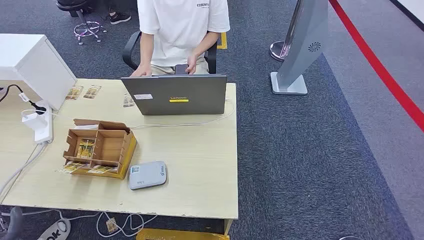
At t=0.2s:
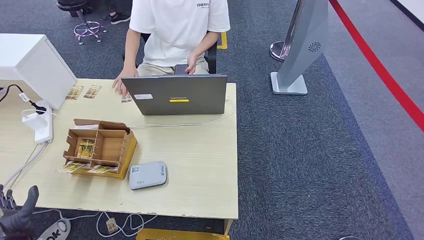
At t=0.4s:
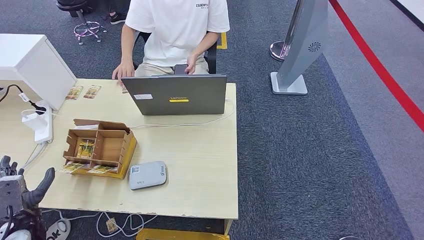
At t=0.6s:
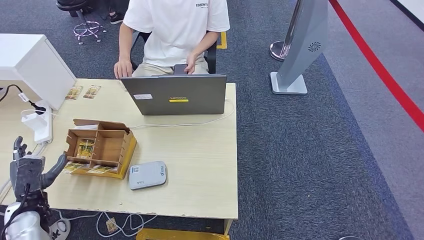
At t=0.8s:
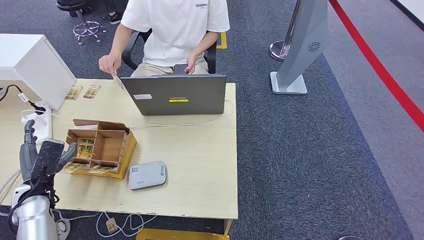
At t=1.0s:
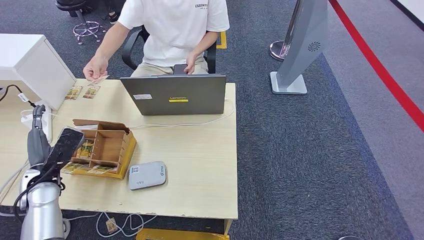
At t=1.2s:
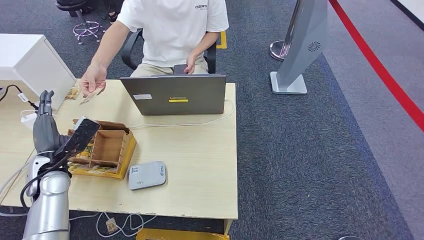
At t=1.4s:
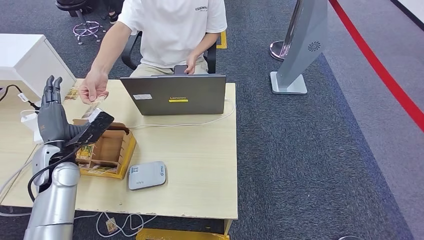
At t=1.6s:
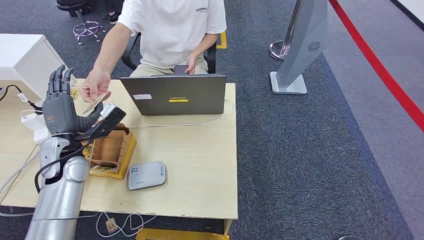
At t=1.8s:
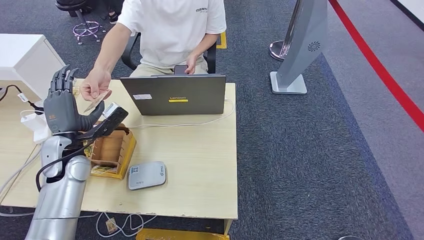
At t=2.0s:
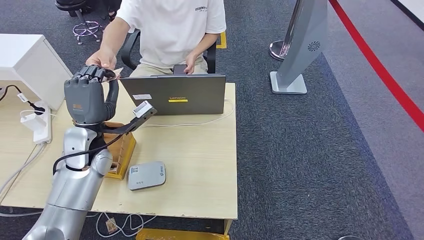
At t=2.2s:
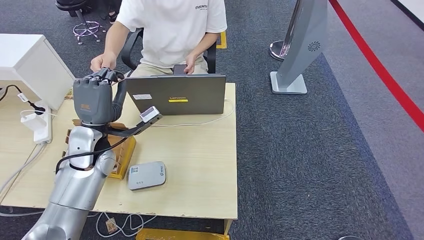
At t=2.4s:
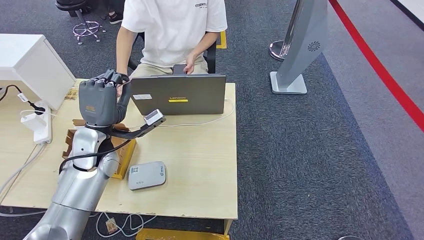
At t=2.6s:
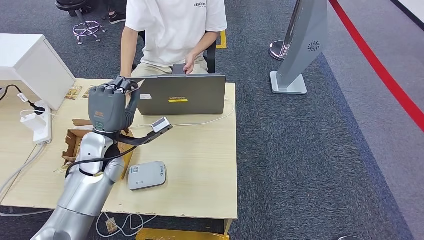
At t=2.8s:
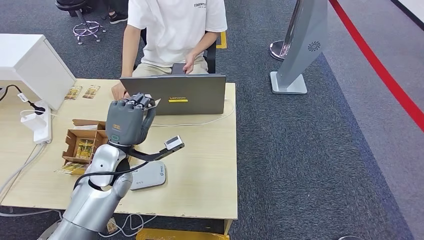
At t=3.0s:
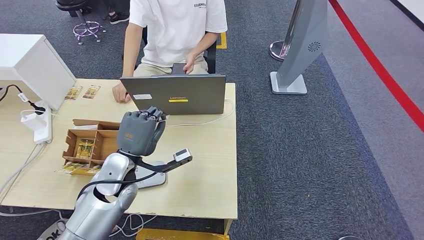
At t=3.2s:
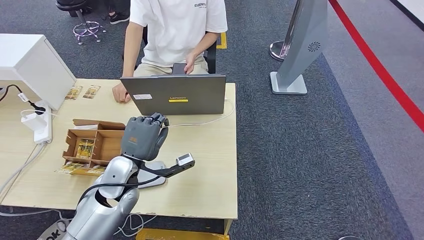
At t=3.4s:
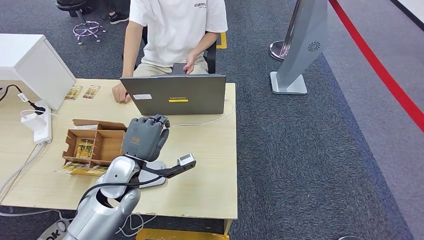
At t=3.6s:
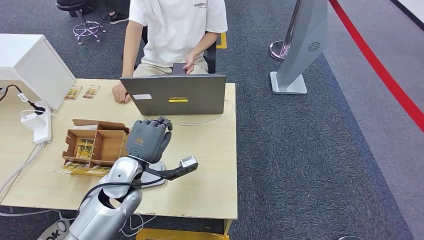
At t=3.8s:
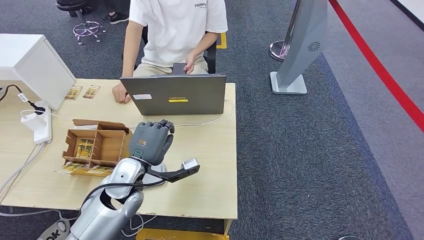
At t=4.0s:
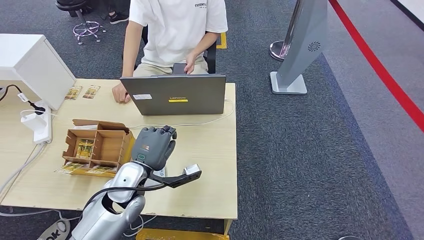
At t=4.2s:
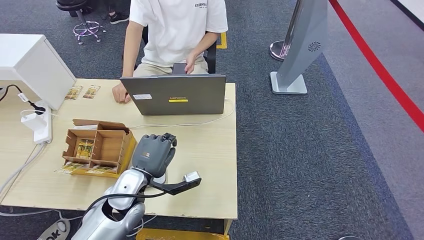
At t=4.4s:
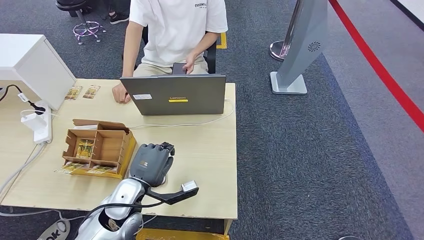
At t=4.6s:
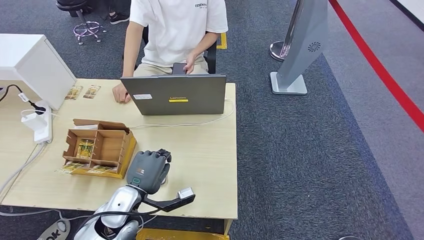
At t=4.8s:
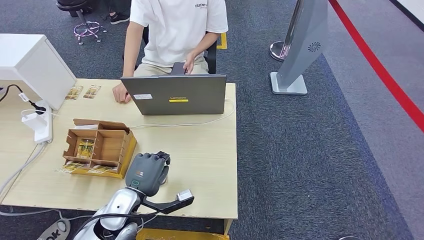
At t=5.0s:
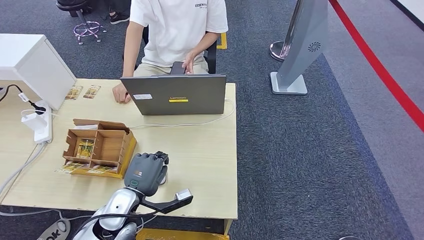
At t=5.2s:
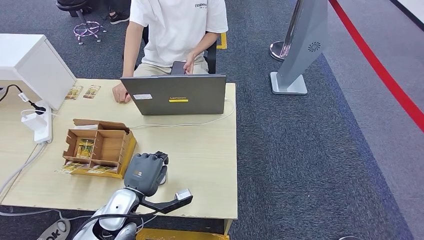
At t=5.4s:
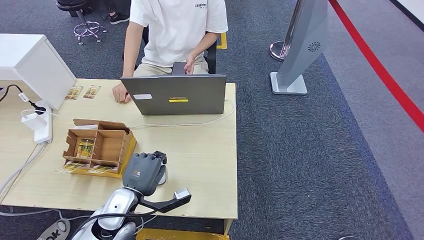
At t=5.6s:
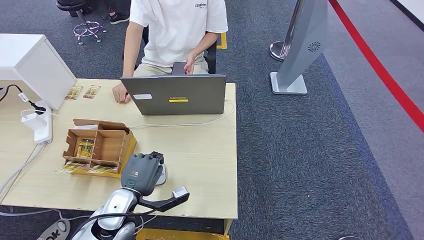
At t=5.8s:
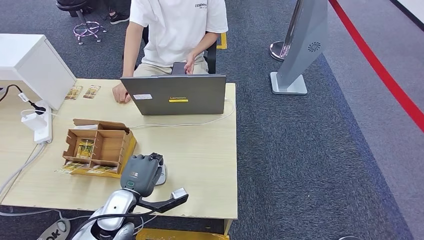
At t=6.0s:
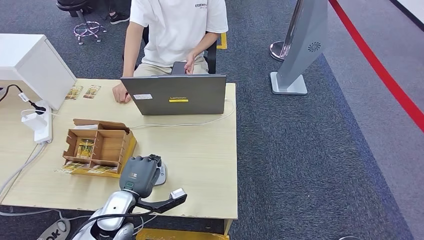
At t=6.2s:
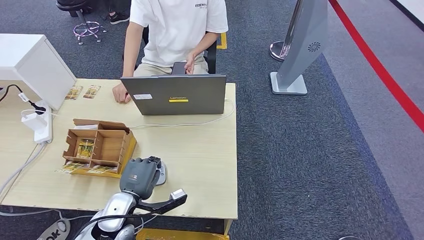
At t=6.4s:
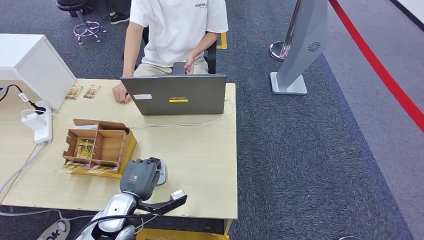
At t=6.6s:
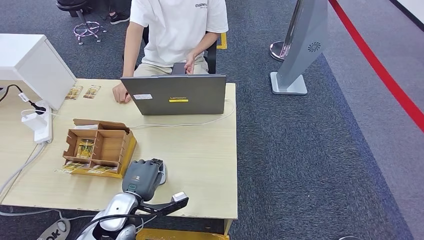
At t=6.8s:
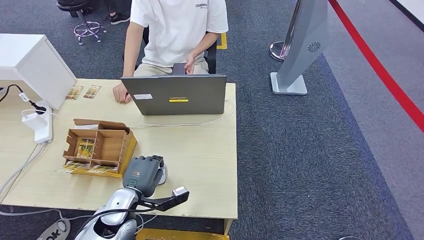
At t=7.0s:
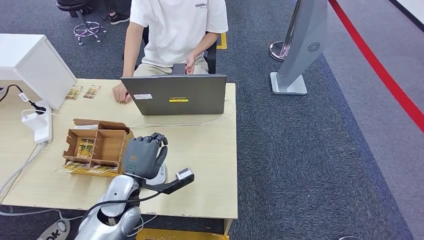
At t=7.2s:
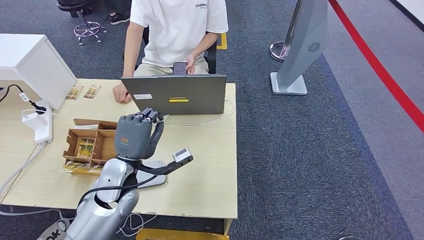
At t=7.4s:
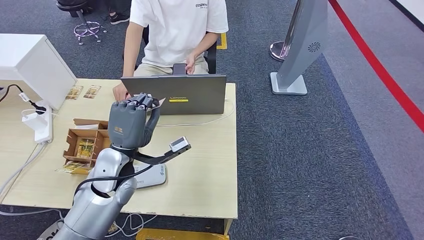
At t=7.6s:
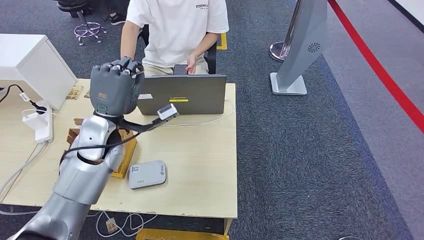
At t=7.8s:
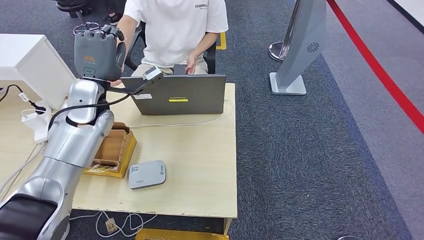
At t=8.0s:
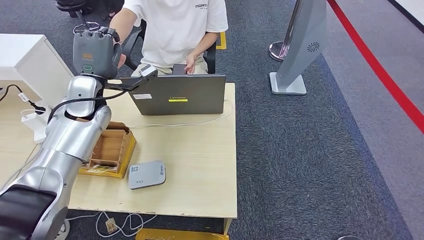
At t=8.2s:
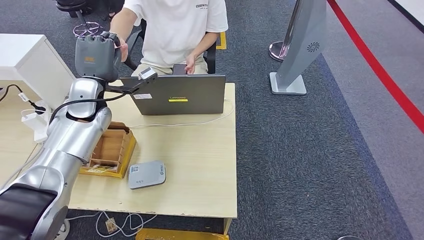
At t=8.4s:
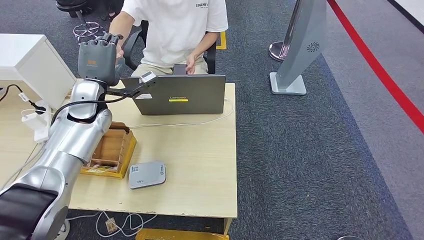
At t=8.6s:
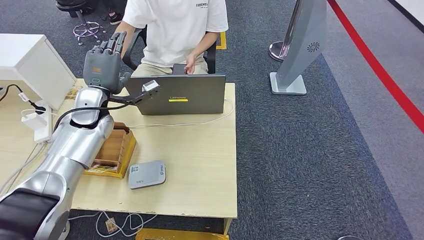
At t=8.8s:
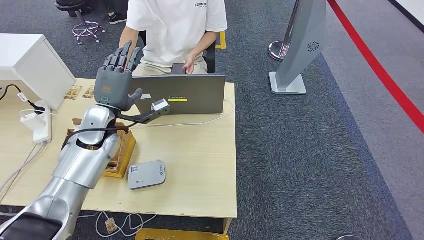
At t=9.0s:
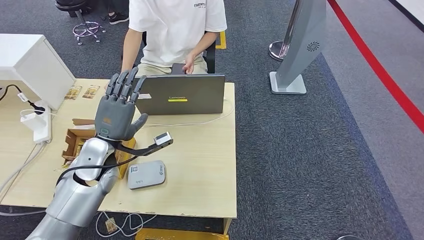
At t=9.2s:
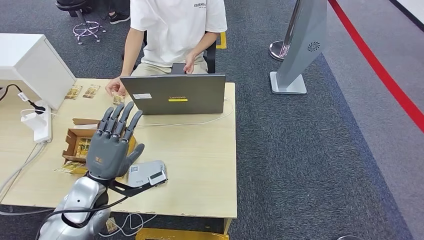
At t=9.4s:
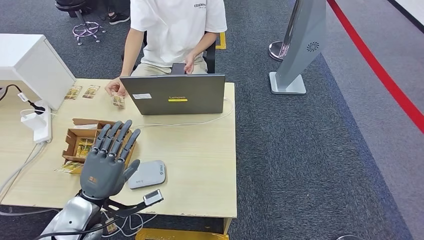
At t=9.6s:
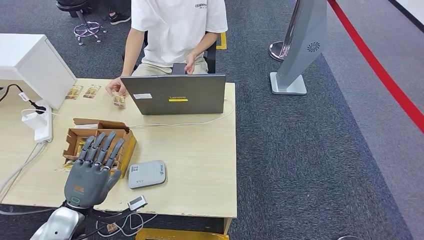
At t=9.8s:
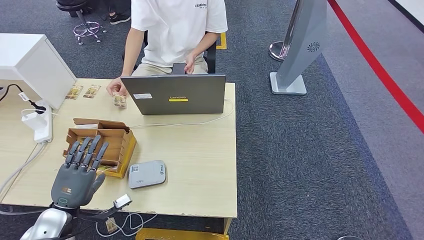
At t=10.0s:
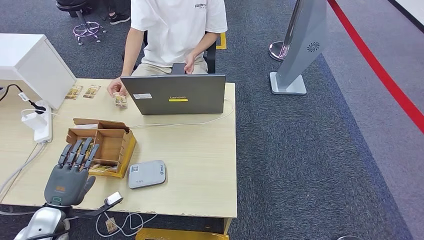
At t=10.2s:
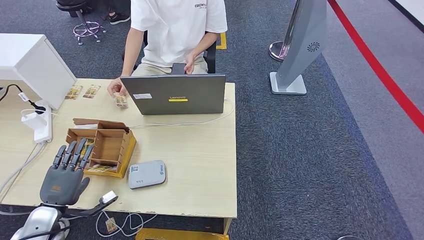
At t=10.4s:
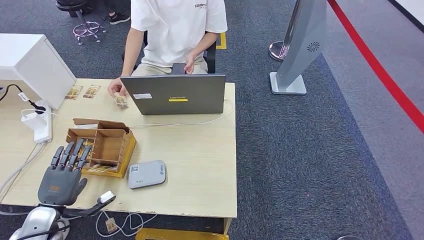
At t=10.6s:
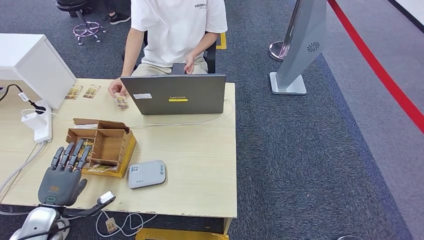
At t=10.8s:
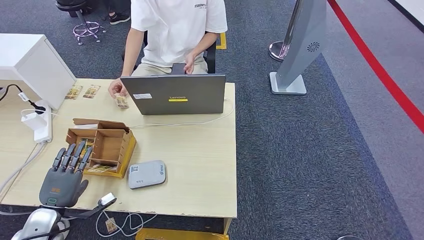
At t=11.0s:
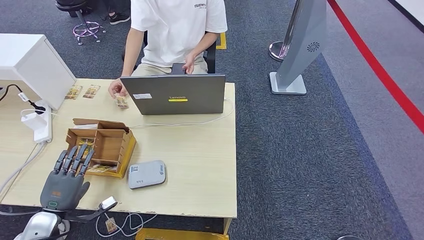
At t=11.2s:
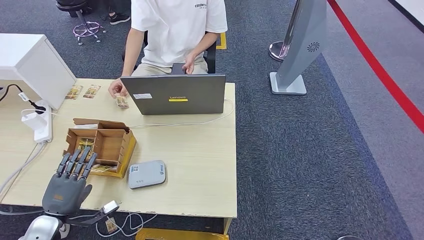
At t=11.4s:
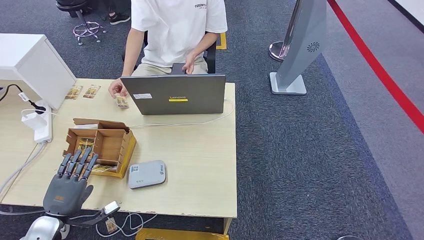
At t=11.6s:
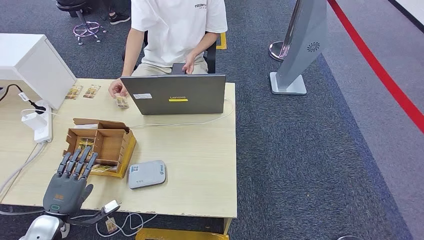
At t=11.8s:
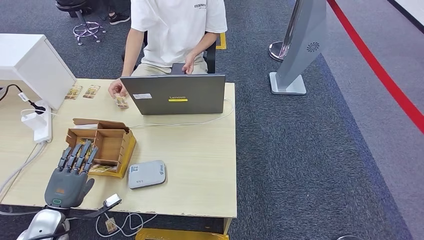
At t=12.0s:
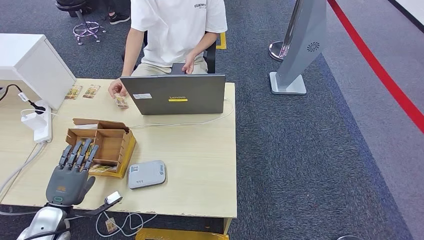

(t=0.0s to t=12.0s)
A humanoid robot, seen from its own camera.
Step, t=0.0s - t=3.4s: Take the ID card from the person's hand.
Step, t=3.8s - t=7.0s: Place the ID card on the card reader.
Step, t=7.2s - t=11.4s: Hand the ID card to the person.
t=1.6s - t=3.0s: The left hand travels to the right by approximately 15 cm.
t=3.0s - t=4.4s: The left hand changes place by roughly 5 cm.
t=4.4s - t=6.0s: The hands make only small movements.
t=6.0s - t=7.6s: The left hand travels upward and forward by some 20 cm.
t=7.6s - t=9.0s: The left hand goes some 5 cm downward, and goes forward and returns, about 10 cm each way.
t=9.0s - t=10.4s: The left hand is displaced to the left, backward and downward by roughly 25 cm.
t=10.4s - t=12.0s: The hands move only a little.

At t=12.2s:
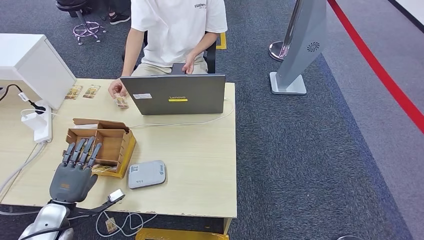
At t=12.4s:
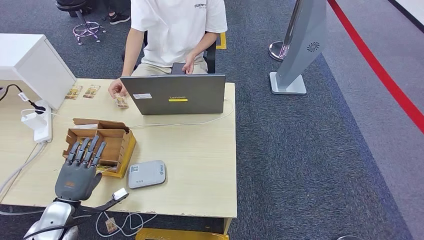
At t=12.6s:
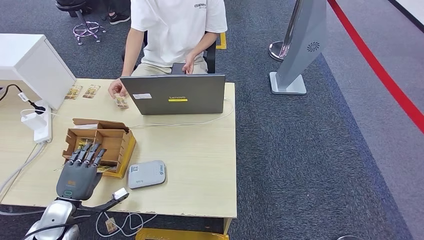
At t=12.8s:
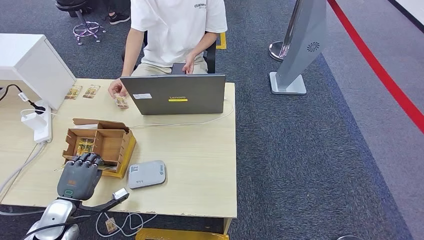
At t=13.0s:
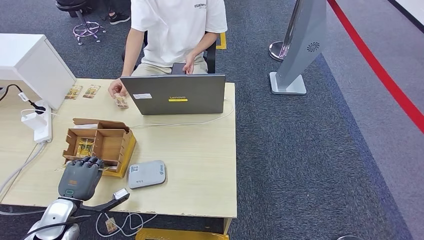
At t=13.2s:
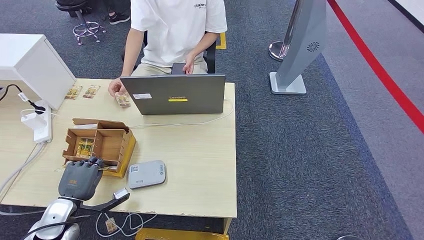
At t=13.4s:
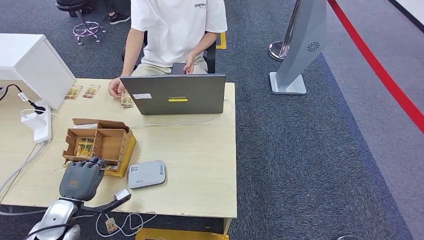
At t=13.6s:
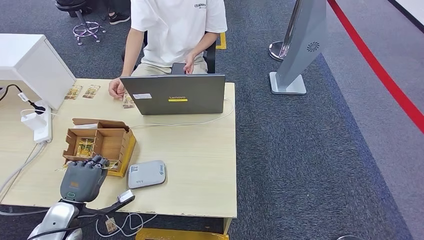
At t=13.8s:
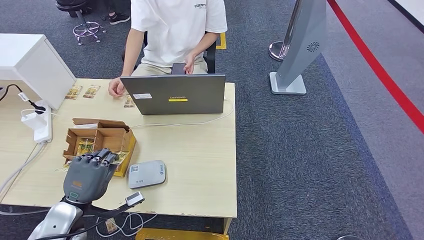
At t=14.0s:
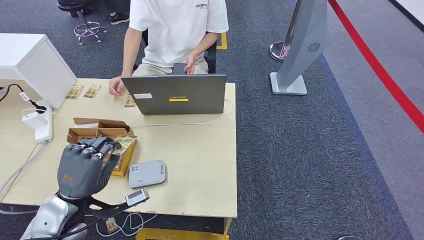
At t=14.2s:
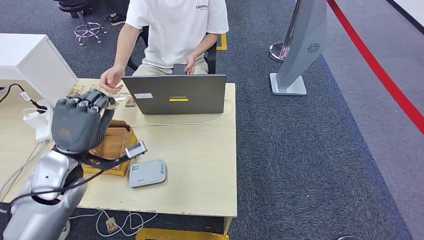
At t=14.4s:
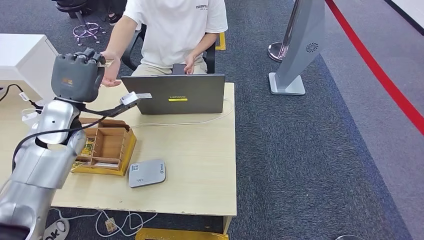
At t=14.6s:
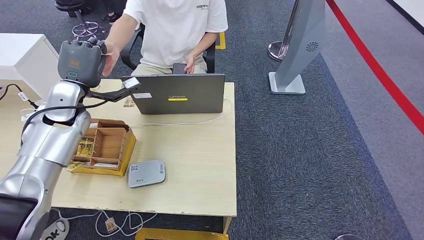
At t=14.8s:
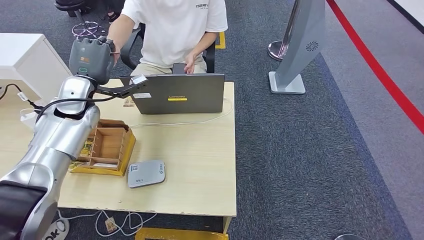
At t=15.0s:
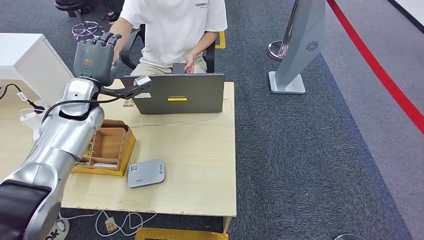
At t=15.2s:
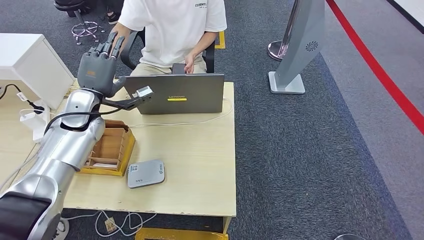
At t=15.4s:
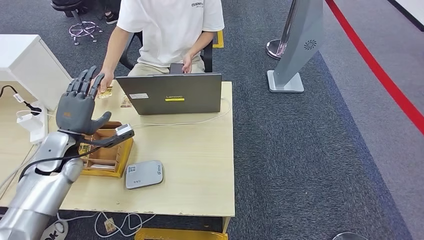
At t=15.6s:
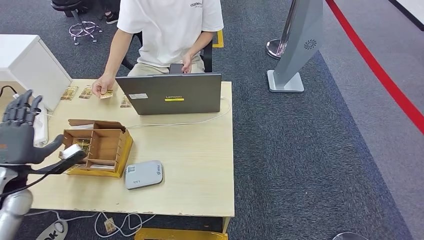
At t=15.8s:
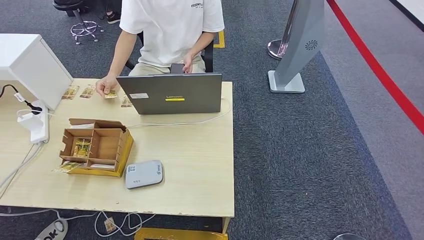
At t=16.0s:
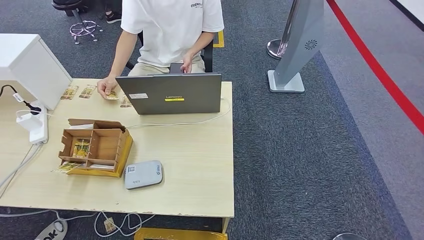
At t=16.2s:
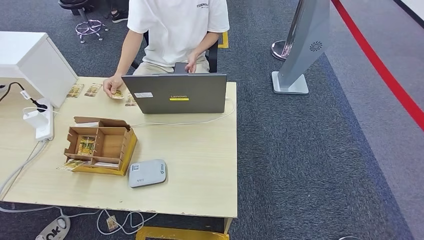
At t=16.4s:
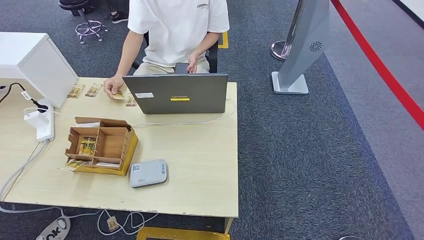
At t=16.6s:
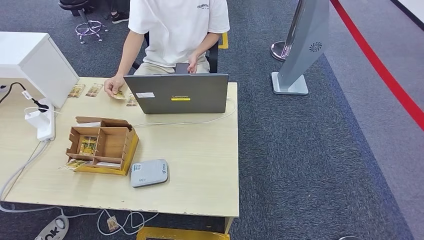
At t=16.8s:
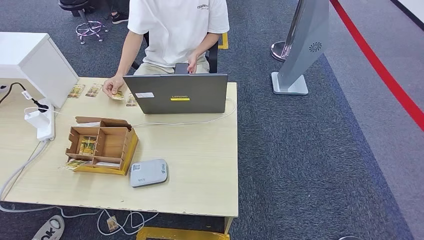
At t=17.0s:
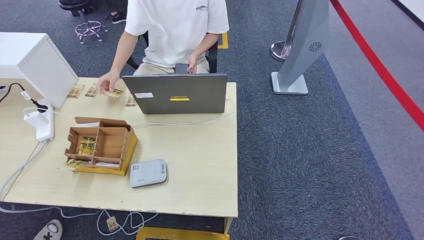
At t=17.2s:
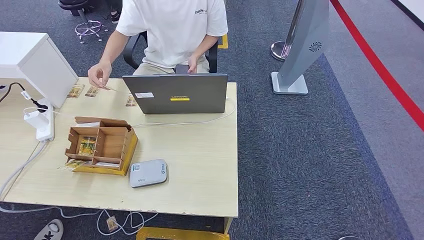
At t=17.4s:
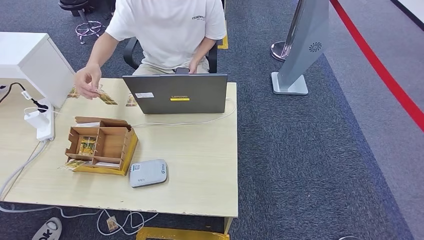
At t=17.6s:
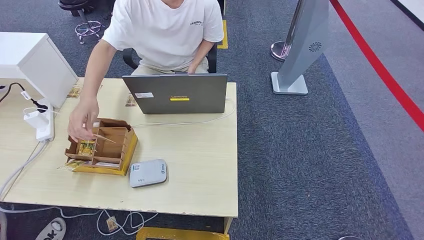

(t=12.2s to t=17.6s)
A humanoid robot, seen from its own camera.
Step, t=12.6s - t=14.4s: Pick up the room key from the key card box.
Step, t=14.6s - t=17.6s: Hand the room key to the person.
t=12.2s - t=13.6s: The hands stay close to where they were, moving slightly.
t=13.6s - t=15.0s: The left hand heads forward and upward, covering approximately 30 cm.
t=15.0s - t=16.2s: The left hand goes roughly 60 cm backward, to the left and downward.
t=16.2s - t=17.6s: The right hand ends up roughly 5 cm from where it was; the left hand moves to the right and downward, approximately 50 cm.
